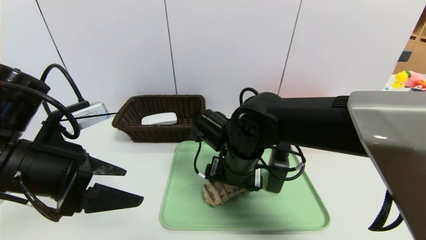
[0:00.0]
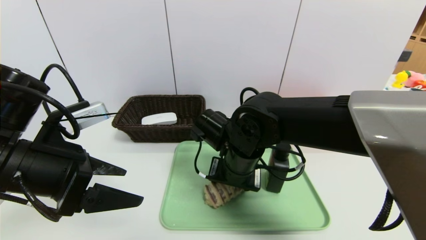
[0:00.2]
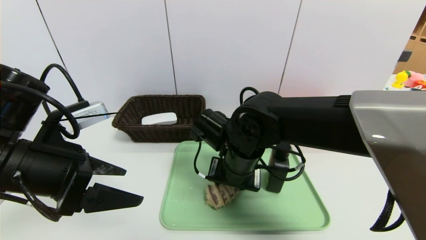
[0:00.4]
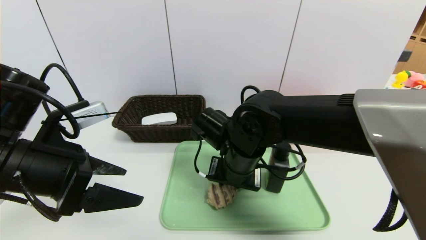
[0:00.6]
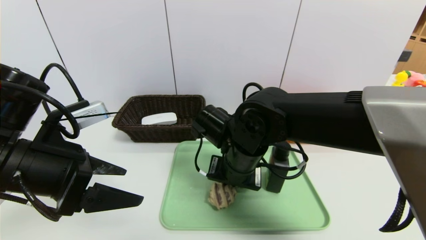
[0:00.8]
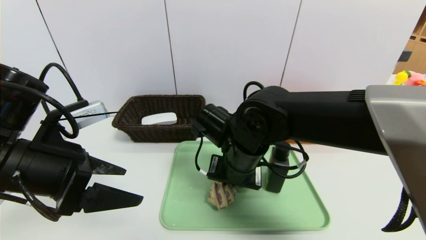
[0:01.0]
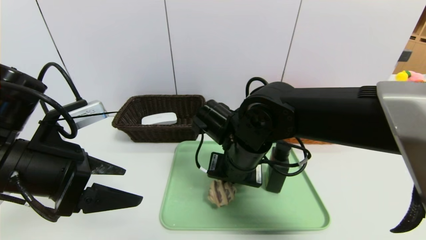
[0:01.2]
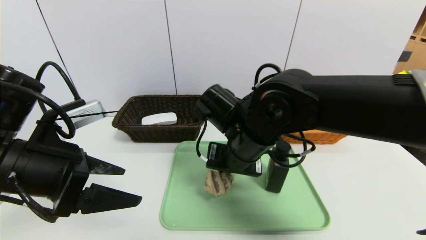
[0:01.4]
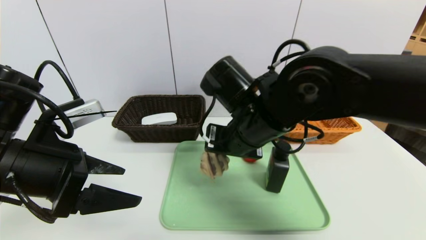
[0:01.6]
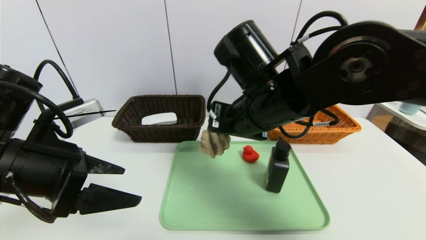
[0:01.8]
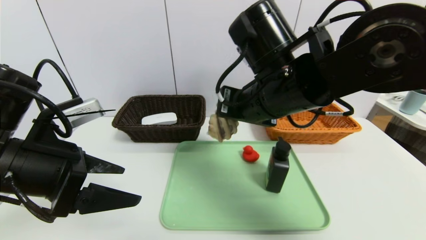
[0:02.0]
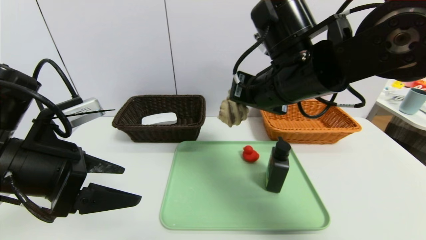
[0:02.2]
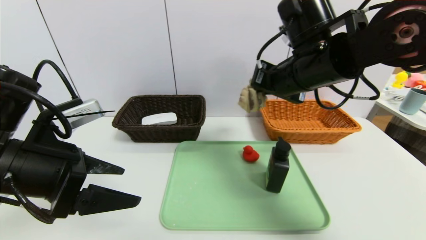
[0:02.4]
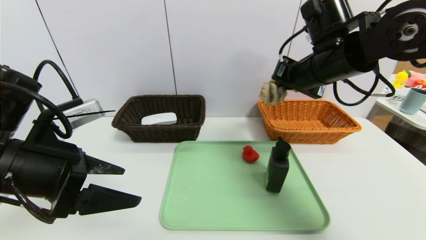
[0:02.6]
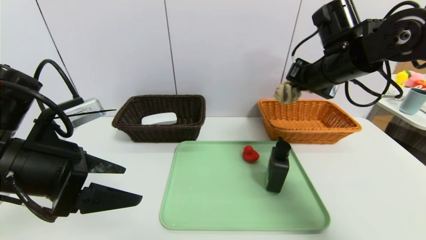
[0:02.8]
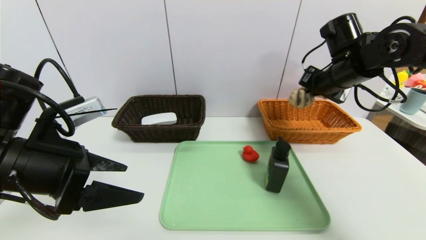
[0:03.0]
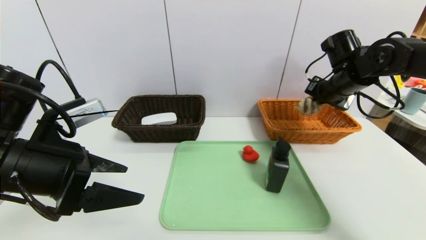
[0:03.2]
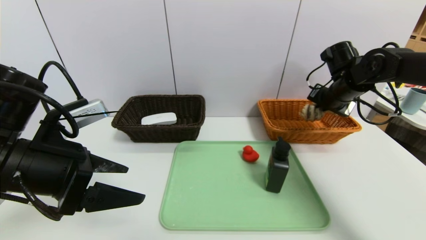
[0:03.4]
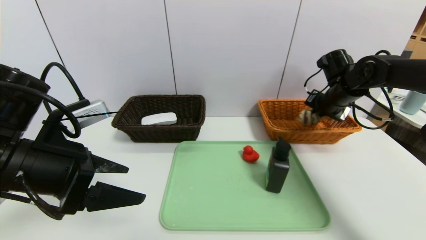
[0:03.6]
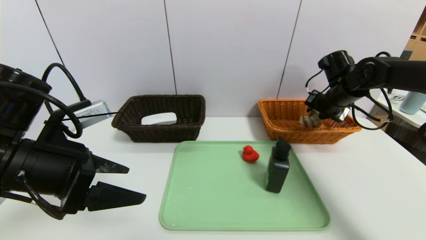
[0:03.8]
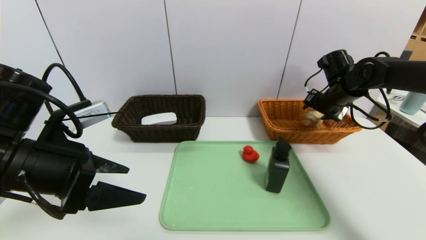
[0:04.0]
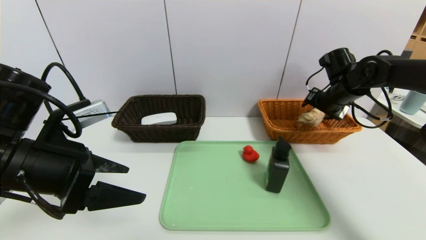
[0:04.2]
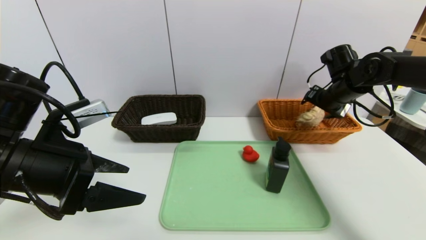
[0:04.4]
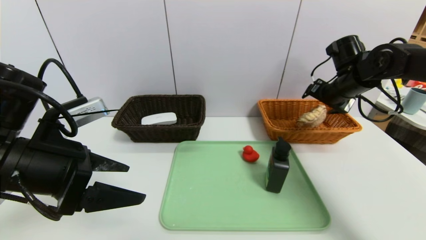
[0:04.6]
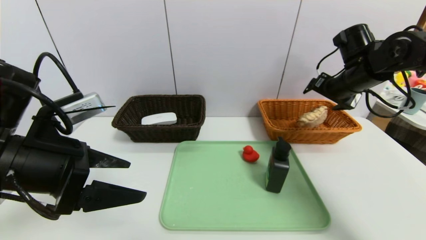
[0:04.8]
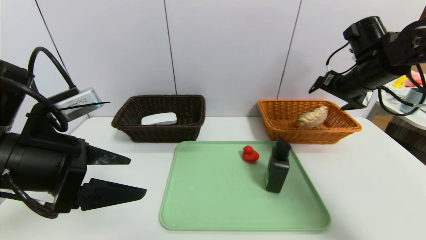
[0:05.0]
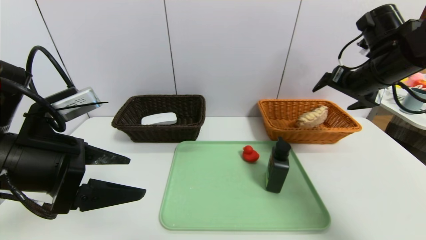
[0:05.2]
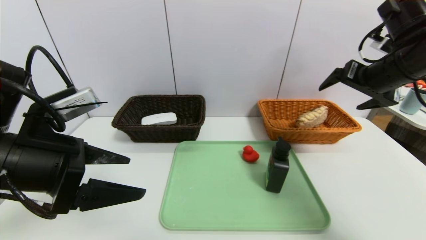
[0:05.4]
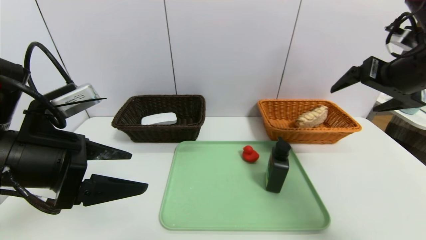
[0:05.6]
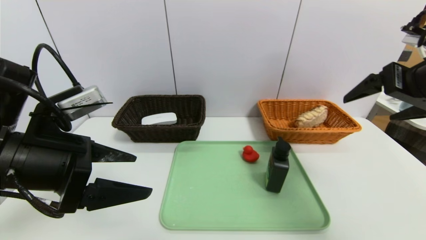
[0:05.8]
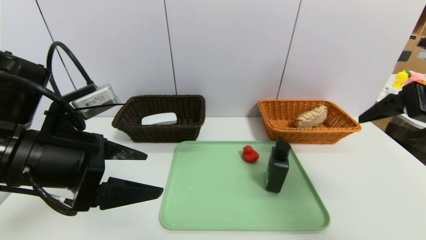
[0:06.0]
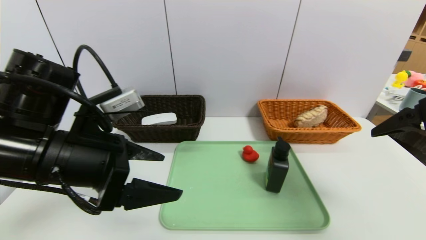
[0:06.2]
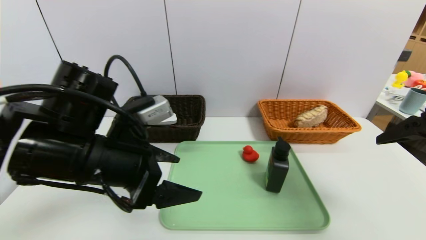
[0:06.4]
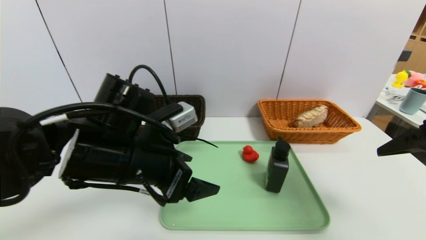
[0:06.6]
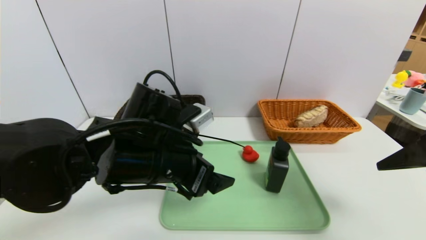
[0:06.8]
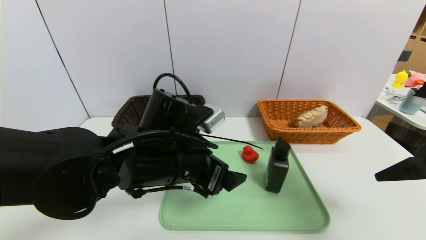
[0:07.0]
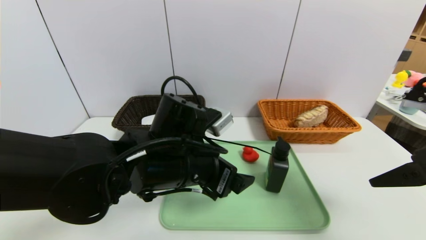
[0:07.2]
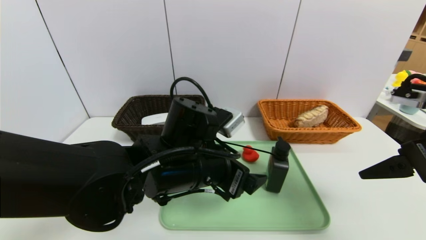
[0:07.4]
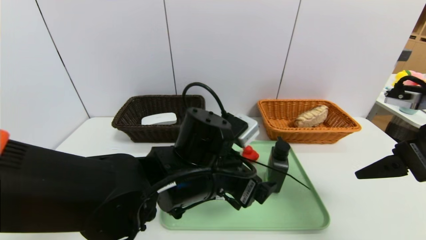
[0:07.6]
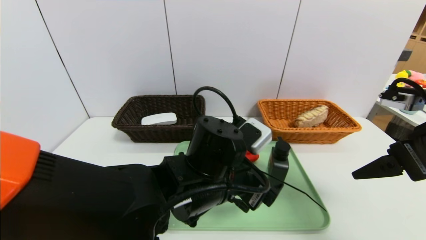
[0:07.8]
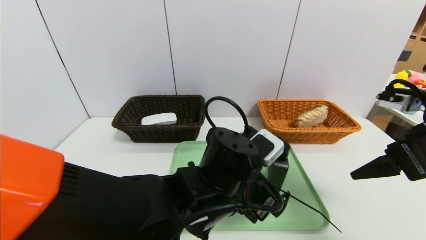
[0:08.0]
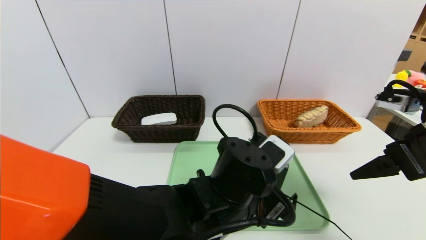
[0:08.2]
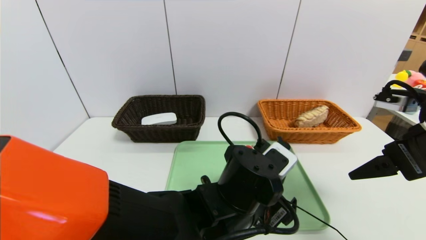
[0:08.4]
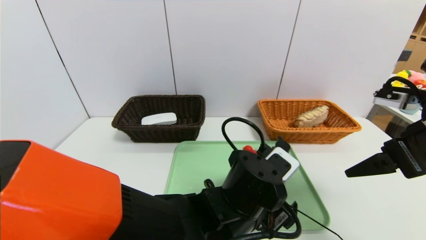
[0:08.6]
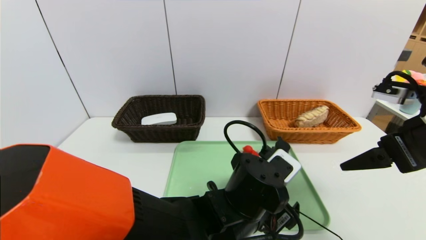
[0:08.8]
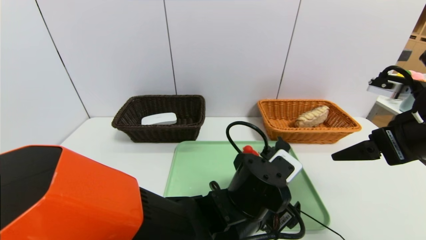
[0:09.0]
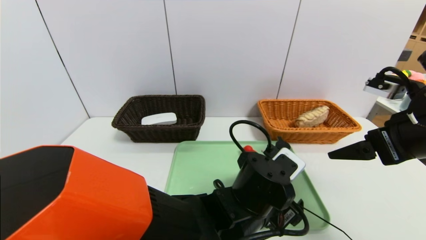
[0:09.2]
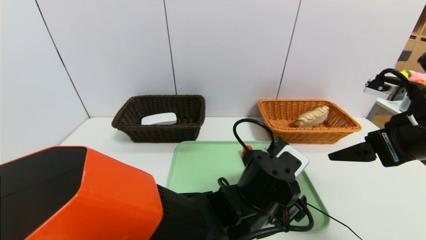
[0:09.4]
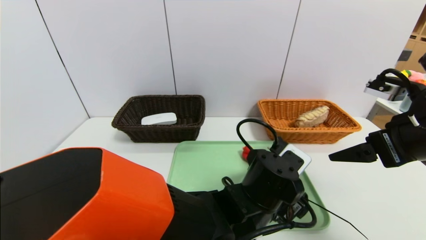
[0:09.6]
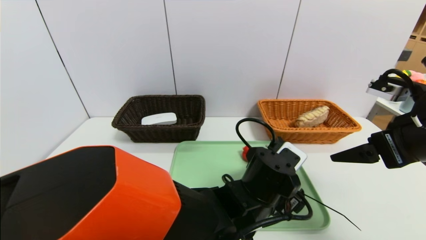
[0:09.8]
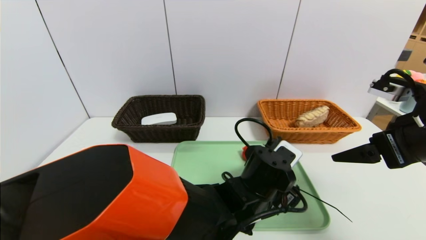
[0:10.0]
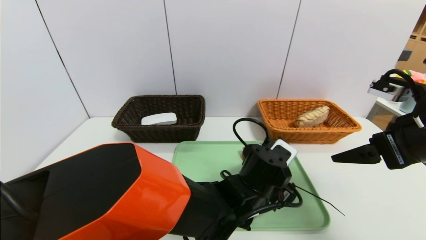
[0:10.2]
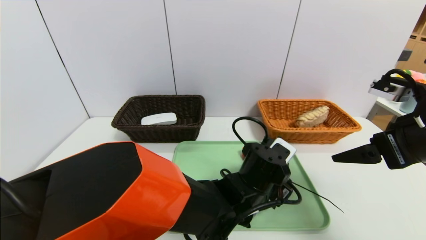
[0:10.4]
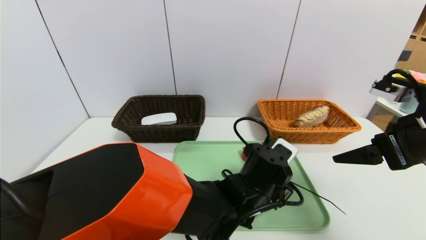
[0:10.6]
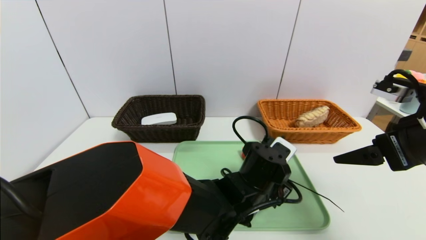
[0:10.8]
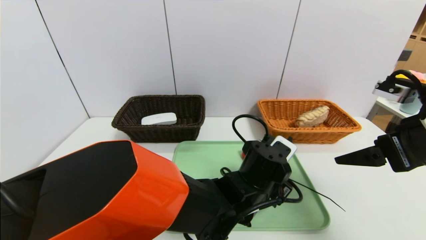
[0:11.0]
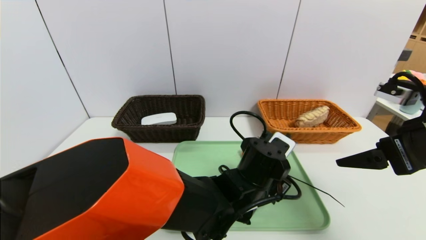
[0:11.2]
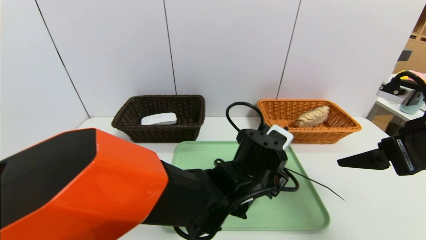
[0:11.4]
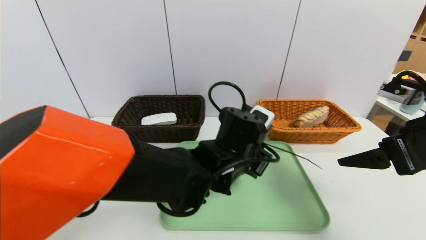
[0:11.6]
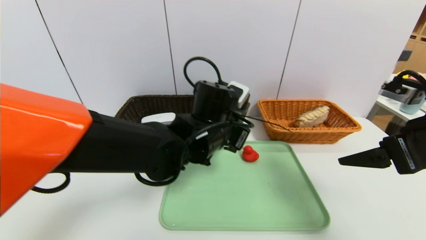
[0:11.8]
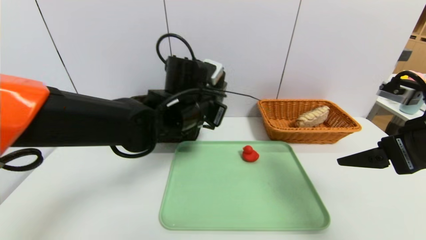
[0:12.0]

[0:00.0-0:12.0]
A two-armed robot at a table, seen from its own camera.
Task of the whole recording: place the food in the right basket with the right gripper, and place the non food items in the left basket with the left gripper.
Step, 0:00.0 to 0:05.4: Grasp the long bread and put it in the right basket.
0:00.0 to 0:01.6: The right gripper shifts roughly 10 cm upward, and closes up.
0:01.6 to 0:03.0: The right gripper shifts about 25 cm to the right and forward.
0:03.0 to 0:04.4: The right gripper ends up some 5 cm from where it was, and opens up.
0:04.4 to 0:06.0: The right gripper goes some 25 cm backward and upward.
0:06.0 to 0:07.6: The left gripper goes roughly 20 cm to the right and downward.
0:07.6 to 0:09.0: The left gripper shifts some 10 cm to the right and downward.
0:09.0 to 0:10.4: The left gripper shifts by approximately 5 cm.
0:10.4 to 0:12.0: The left gripper heads to the left, upward and forward, covering some 20 cm, and closes up.

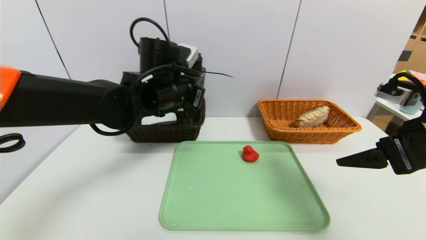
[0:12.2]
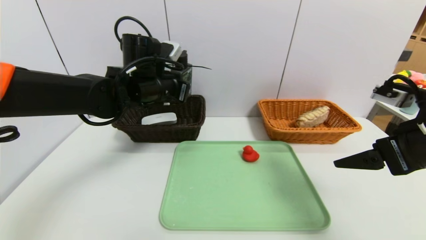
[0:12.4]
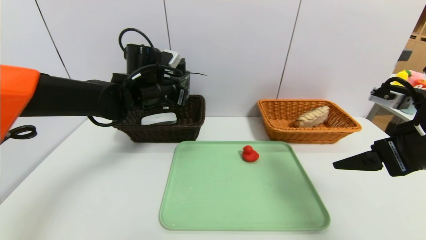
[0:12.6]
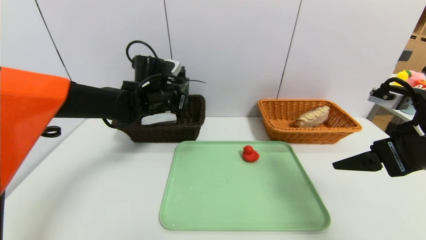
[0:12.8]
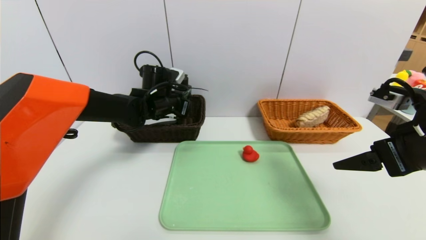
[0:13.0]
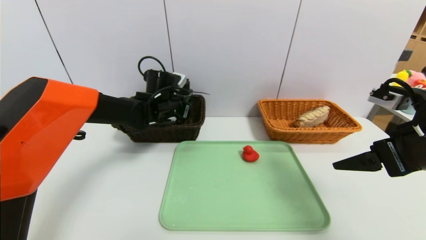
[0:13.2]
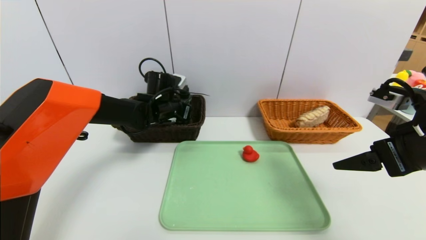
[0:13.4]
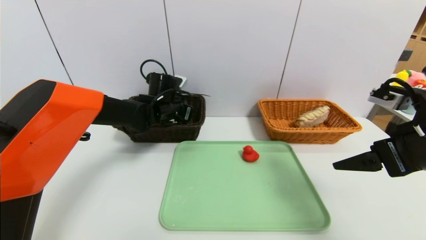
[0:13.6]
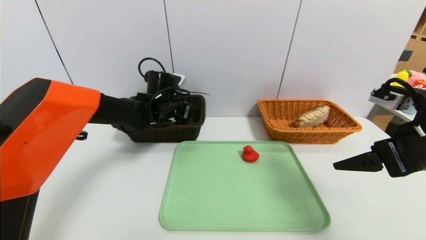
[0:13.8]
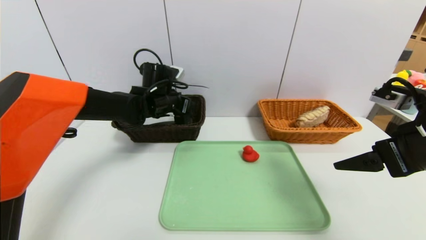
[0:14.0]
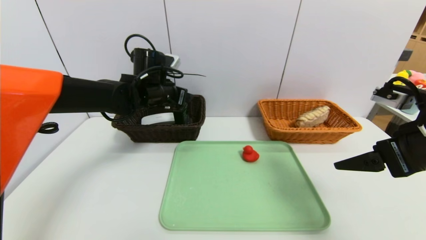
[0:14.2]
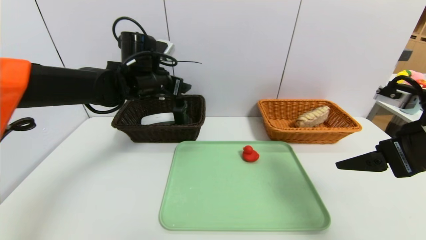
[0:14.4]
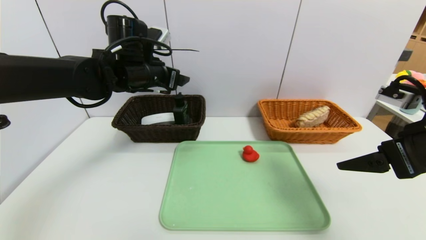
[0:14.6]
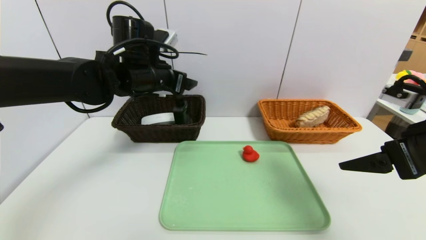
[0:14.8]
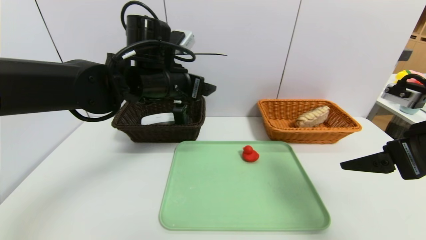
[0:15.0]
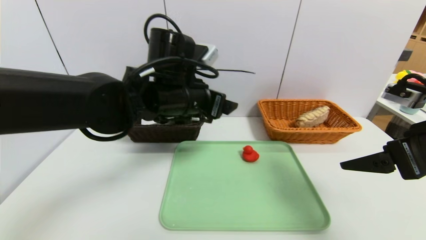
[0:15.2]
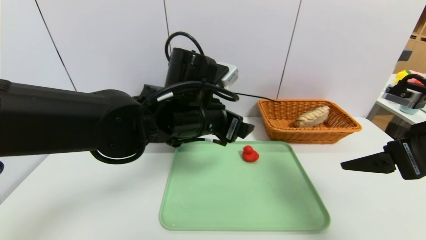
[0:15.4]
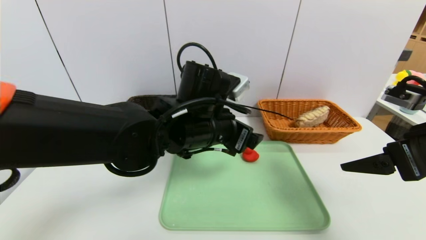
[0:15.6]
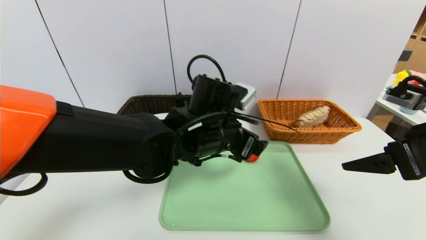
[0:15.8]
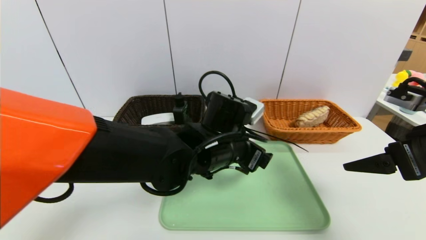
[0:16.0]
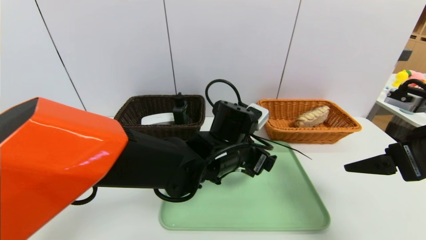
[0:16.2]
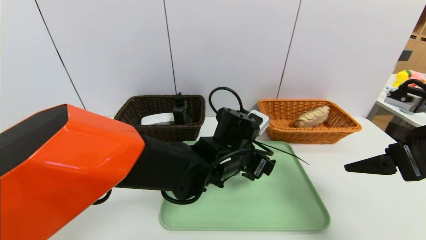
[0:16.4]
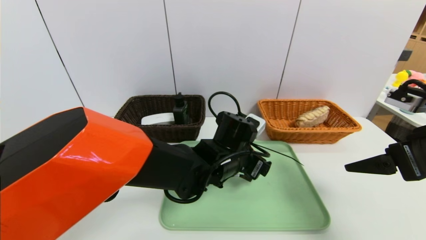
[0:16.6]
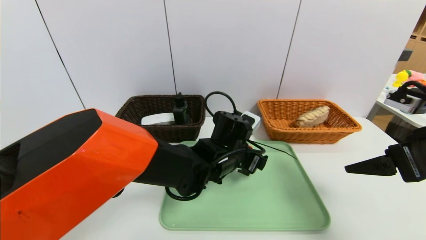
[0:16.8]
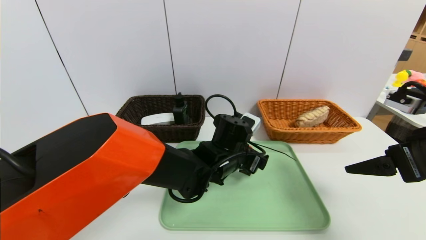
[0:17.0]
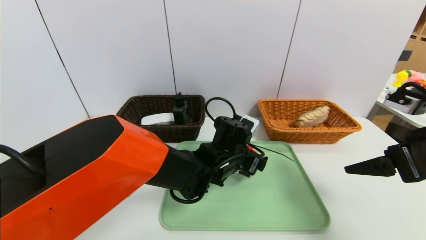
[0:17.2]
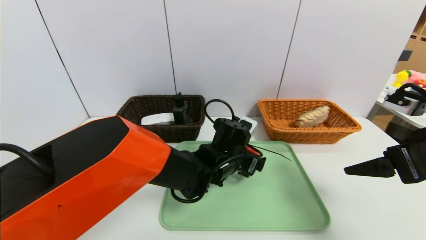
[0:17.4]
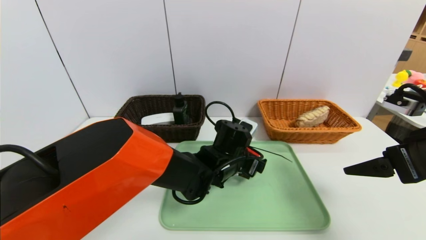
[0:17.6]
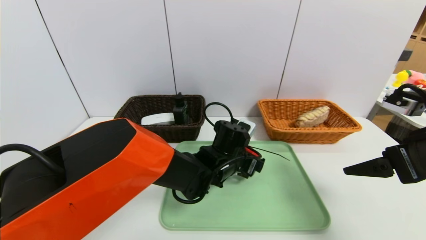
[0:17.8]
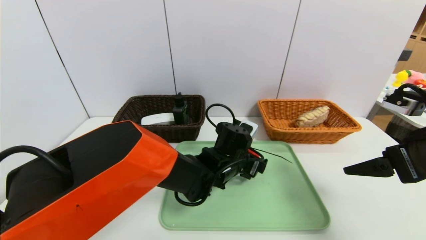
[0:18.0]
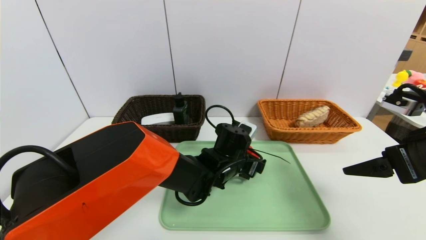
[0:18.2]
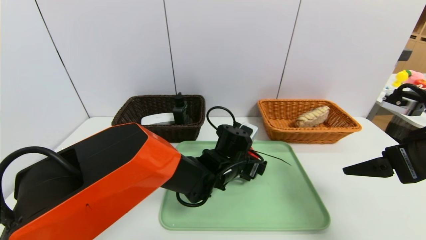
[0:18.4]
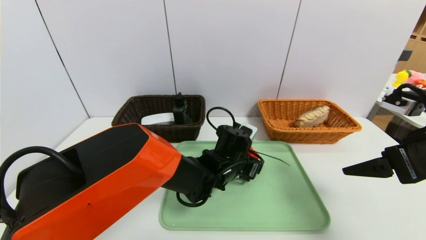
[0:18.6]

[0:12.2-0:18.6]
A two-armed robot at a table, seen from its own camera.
Task of the whole recording: place the food in the right basket with the right gripper, and place the non food items in the left basket with the left gripper.
Step, 0:12.2 to 0:14.8: Grasp the hard cleanser and put it in the left basket.
0:12.2 to 0:13.8: The left gripper moves forward and downward, roughly 10 cm, and opens.
0:13.8 to 0:15.4: The left gripper shifts roughly 20 cm backward and to the right.
0:15.4 to 0:17.0: The left gripper heads downward and to the right, covering about 15 cm.
0:17.0 to 0:18.6: The grippers make only small movements.
